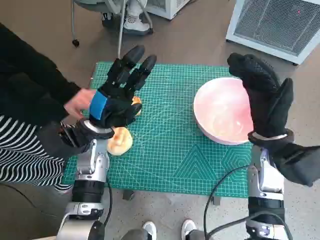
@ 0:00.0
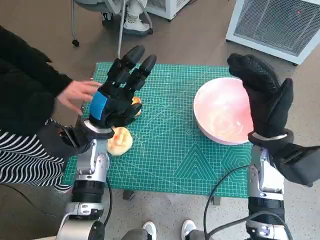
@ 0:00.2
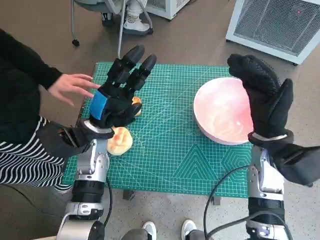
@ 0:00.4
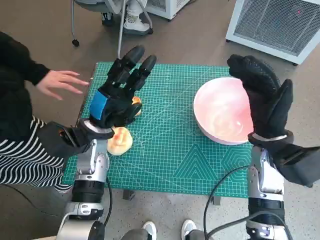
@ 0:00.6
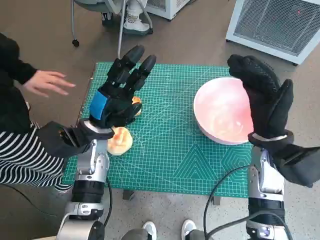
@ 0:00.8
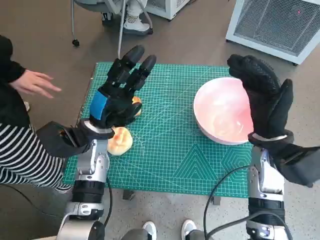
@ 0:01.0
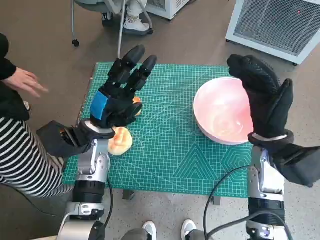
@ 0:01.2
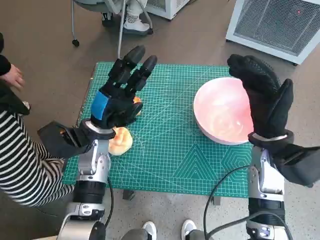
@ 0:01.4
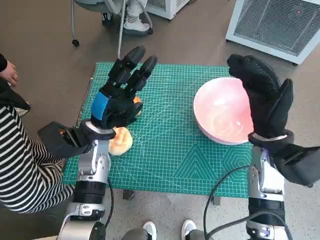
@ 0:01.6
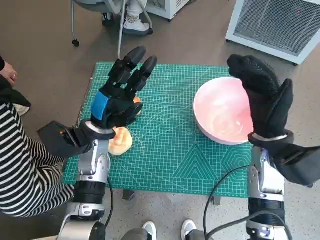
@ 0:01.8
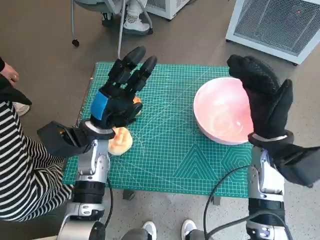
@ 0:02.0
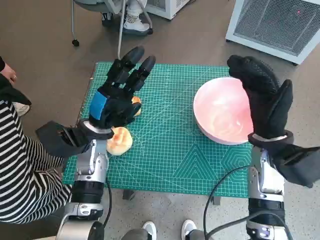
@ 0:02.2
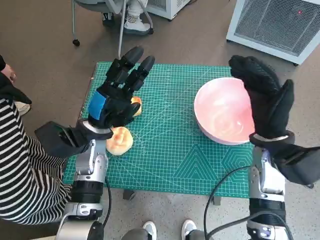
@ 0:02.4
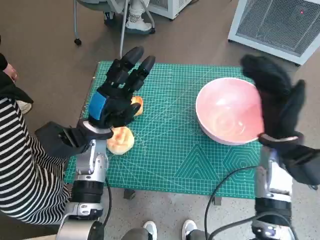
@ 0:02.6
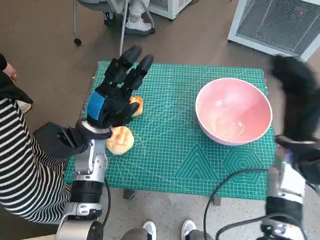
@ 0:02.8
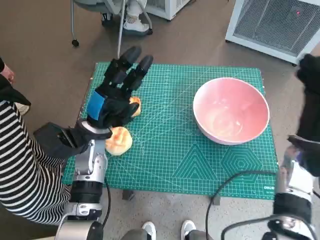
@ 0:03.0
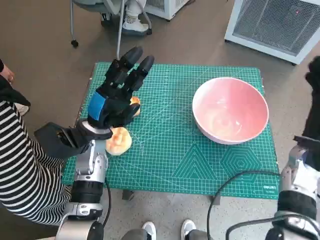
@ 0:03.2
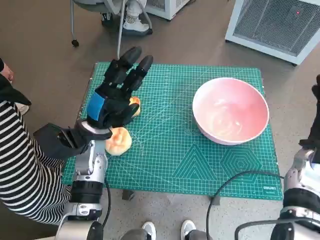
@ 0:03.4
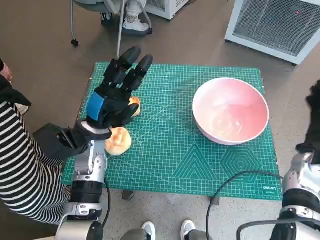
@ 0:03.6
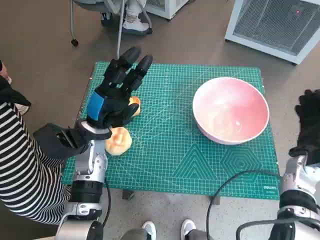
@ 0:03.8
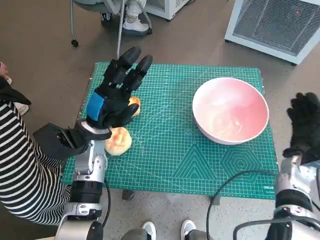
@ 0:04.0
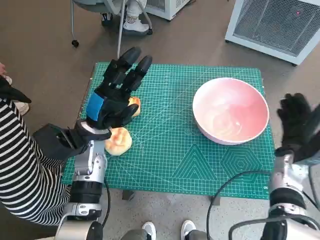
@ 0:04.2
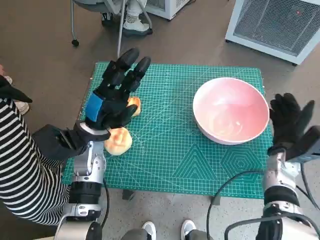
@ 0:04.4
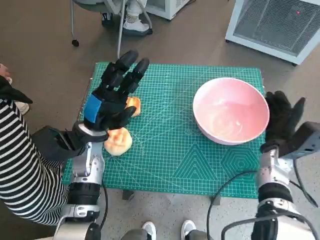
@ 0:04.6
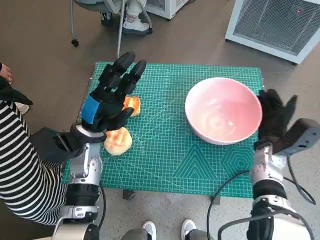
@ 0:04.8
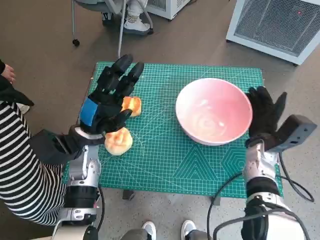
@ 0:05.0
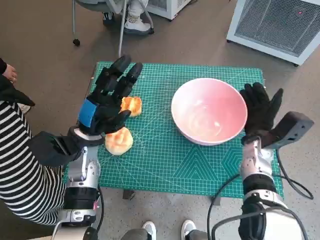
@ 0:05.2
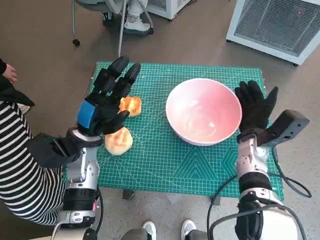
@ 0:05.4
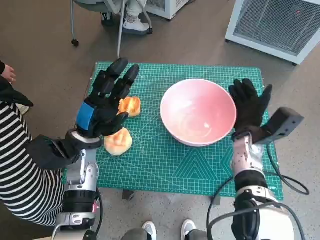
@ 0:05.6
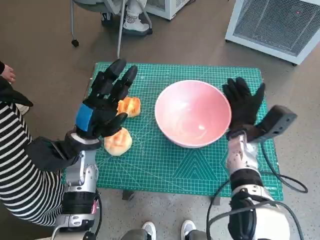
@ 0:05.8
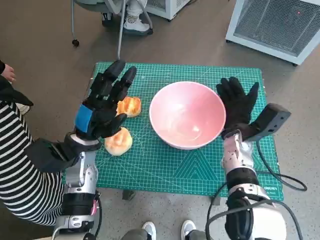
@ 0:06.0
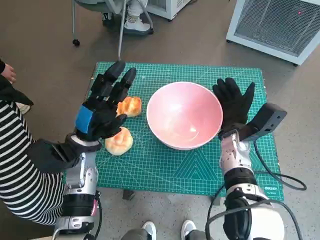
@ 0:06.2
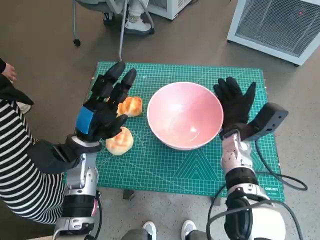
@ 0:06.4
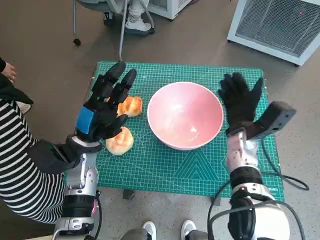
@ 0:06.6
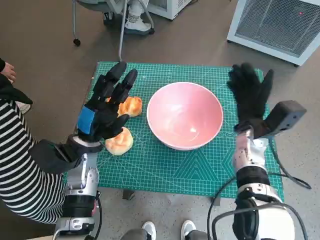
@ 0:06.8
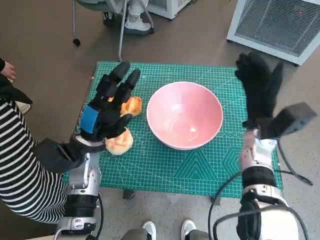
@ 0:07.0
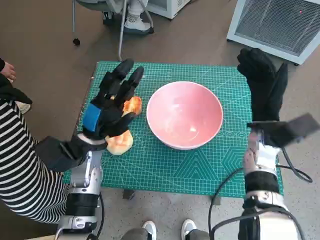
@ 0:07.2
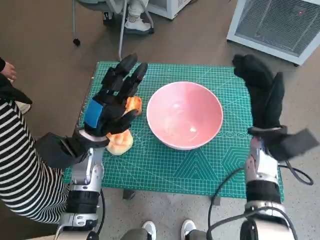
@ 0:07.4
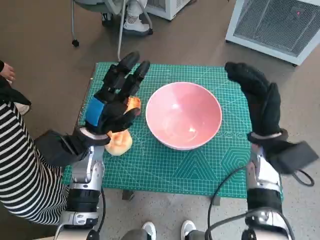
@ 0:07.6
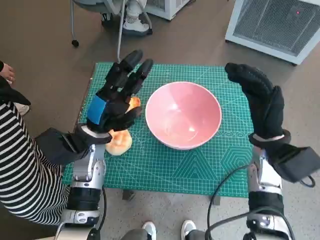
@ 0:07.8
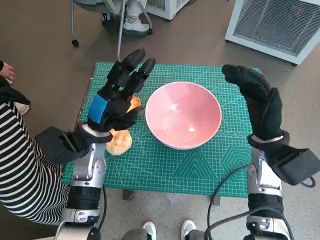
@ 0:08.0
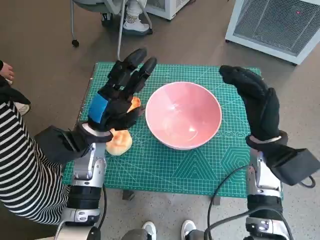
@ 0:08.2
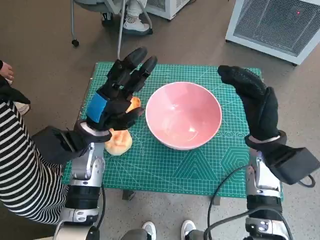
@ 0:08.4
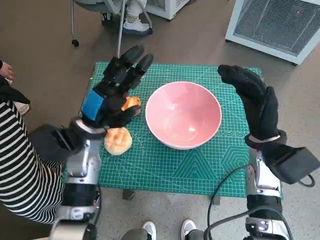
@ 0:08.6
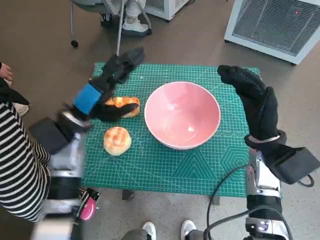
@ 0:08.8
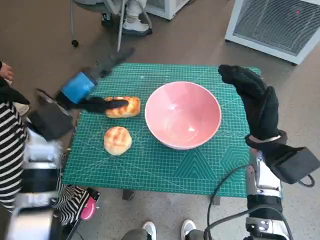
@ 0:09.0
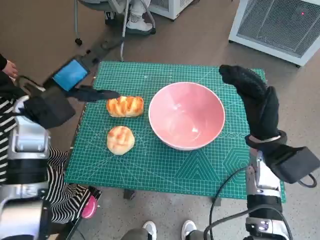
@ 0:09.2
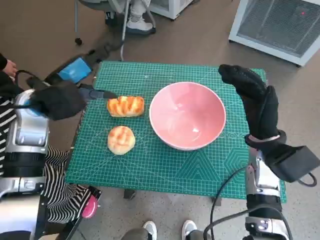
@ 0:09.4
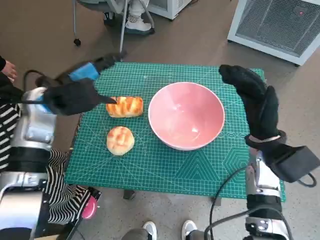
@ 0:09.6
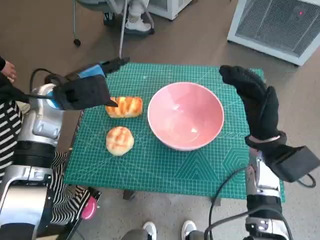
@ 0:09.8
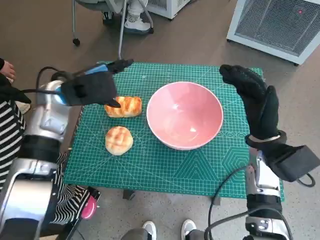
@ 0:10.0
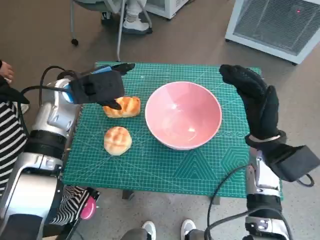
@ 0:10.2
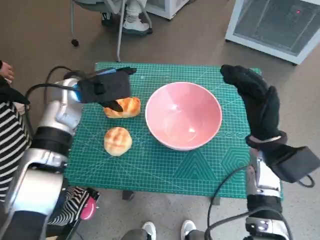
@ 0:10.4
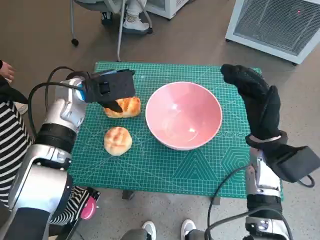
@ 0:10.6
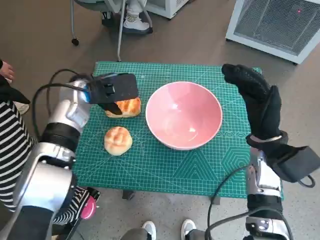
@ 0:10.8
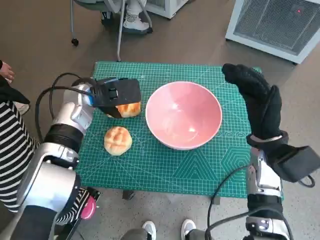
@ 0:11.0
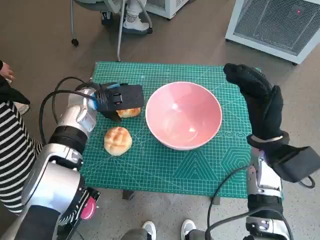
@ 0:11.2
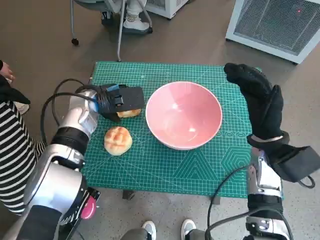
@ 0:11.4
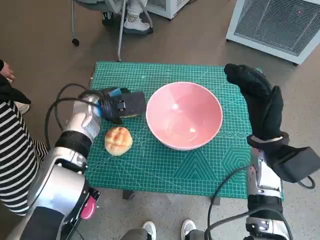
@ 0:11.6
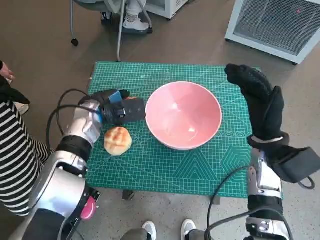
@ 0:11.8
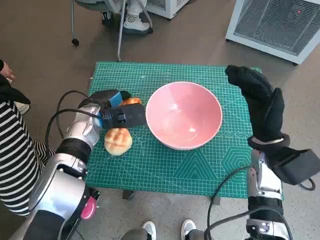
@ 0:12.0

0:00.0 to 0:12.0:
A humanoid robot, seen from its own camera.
Task of the whole recording: Push the bowl into the center of the table and put the bread into the bowl.
Step, 0:00.0 to 0:06.6: Move the pink bowl to the center of table with right hand.
0:01.6 to 0:03.0: The right hand heads to the right, covering some 5 cm.
0:03.0 to 0:04.4: The right hand shifts some 10 cm downward.
0:04.4 to 0:06.0: The right hand heads to the left, covering some 10 cm.
0:06.0 to 0:07.6: The right hand heads upward, covering some 5 cm.
0:07.6 to 0:09.0: The left hand goes approximately 5 cm upward.
0:09.0 to 0:10.4: The left hand shifts some 5 cm forward.
0:10.4 to 0:12.0: The left hand goes about 10 cm downward.

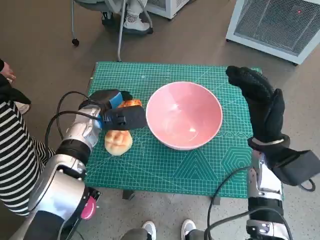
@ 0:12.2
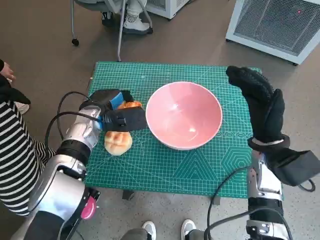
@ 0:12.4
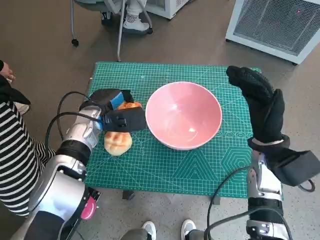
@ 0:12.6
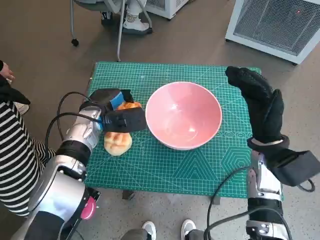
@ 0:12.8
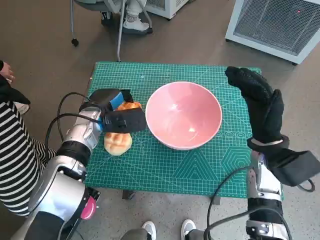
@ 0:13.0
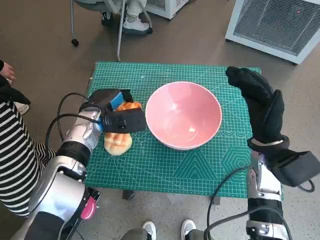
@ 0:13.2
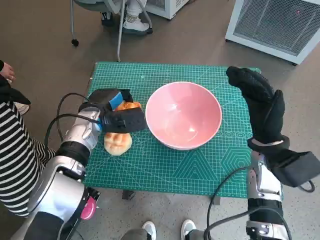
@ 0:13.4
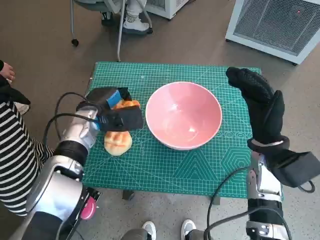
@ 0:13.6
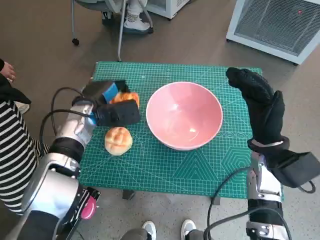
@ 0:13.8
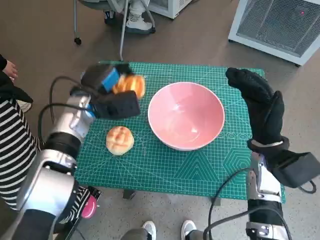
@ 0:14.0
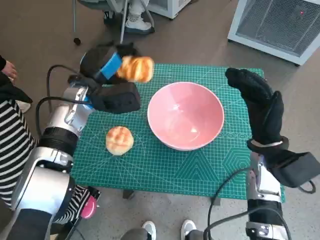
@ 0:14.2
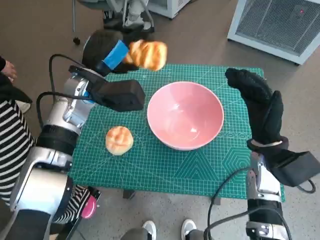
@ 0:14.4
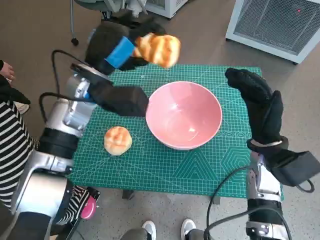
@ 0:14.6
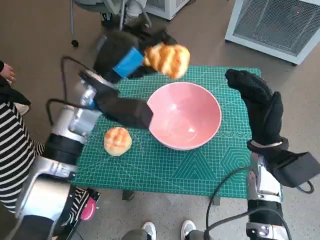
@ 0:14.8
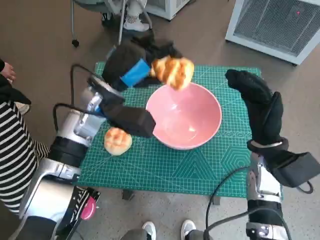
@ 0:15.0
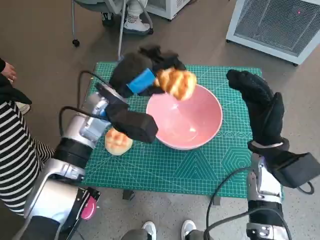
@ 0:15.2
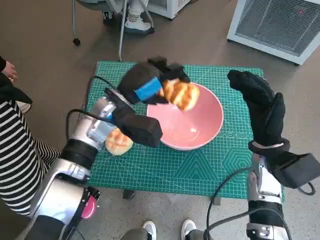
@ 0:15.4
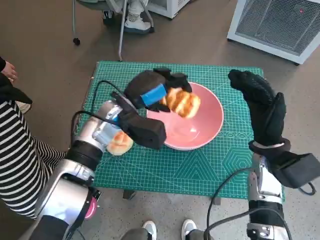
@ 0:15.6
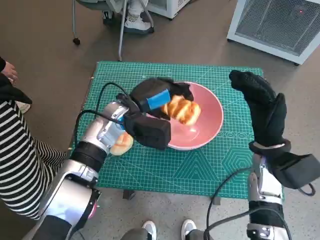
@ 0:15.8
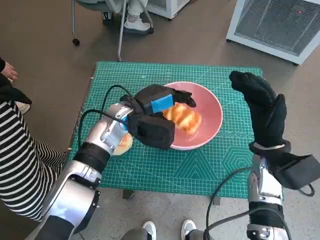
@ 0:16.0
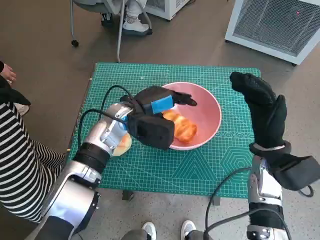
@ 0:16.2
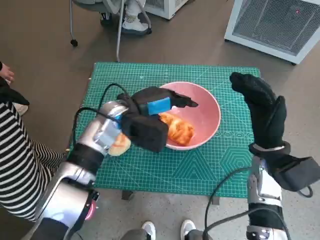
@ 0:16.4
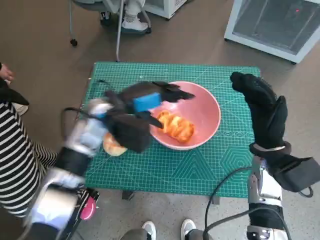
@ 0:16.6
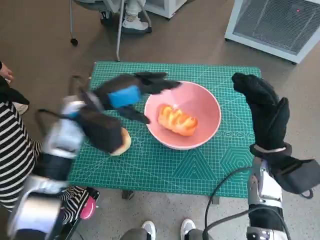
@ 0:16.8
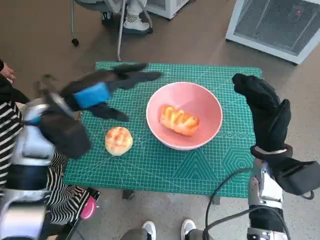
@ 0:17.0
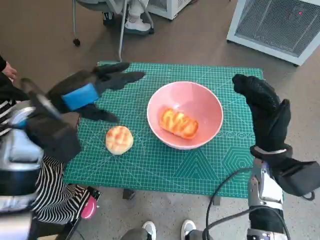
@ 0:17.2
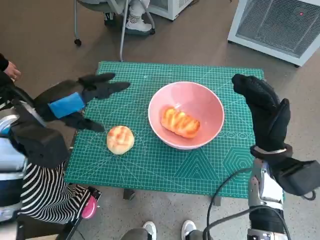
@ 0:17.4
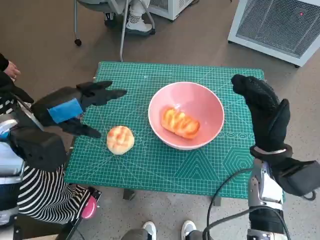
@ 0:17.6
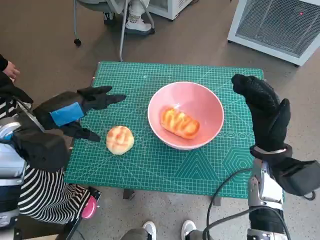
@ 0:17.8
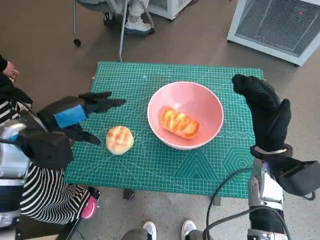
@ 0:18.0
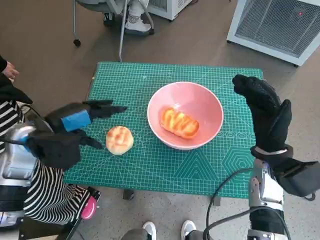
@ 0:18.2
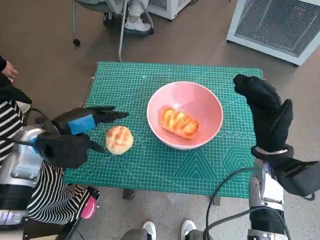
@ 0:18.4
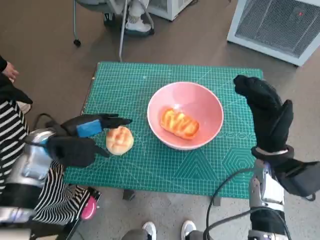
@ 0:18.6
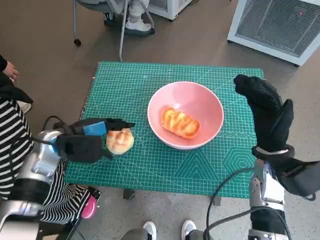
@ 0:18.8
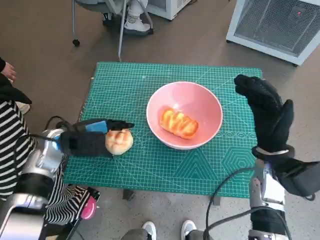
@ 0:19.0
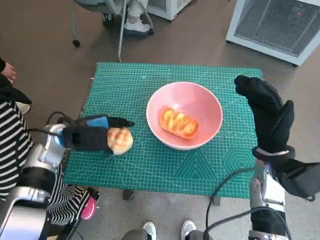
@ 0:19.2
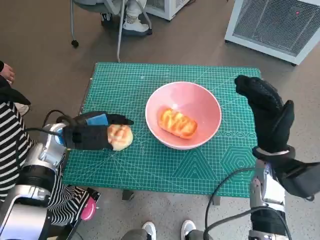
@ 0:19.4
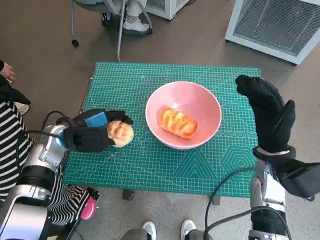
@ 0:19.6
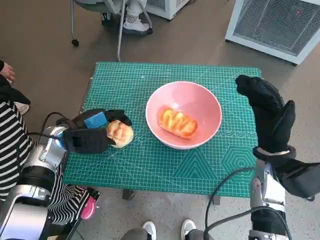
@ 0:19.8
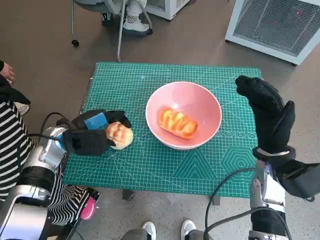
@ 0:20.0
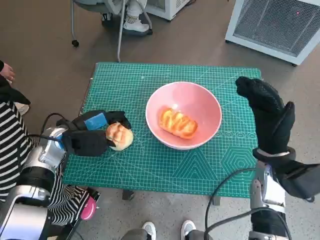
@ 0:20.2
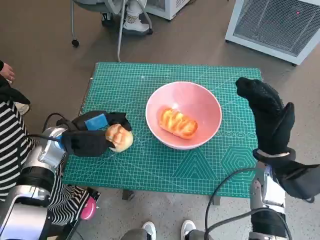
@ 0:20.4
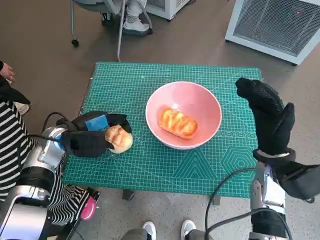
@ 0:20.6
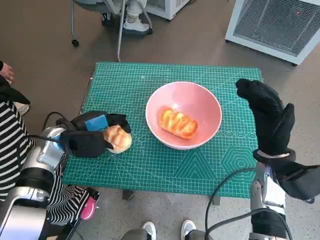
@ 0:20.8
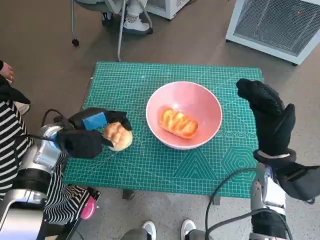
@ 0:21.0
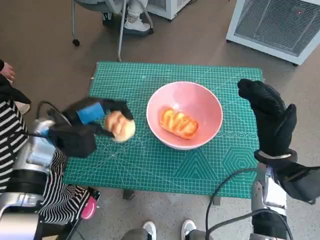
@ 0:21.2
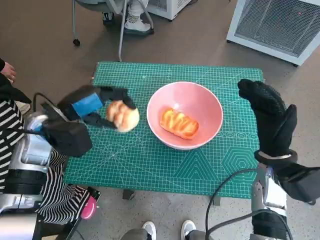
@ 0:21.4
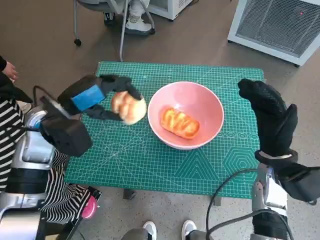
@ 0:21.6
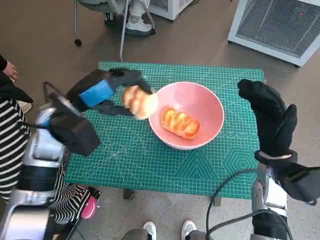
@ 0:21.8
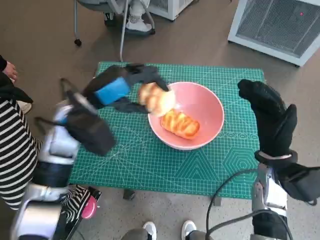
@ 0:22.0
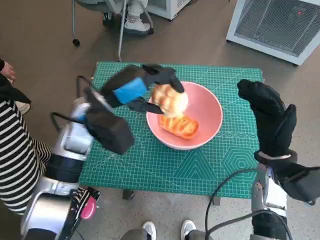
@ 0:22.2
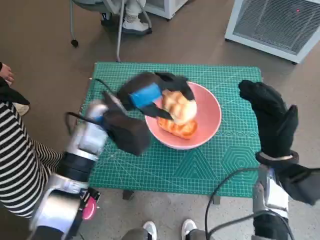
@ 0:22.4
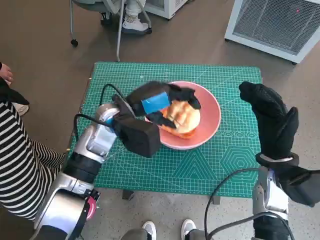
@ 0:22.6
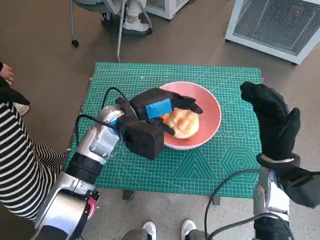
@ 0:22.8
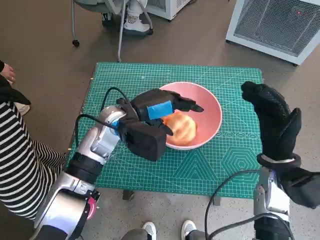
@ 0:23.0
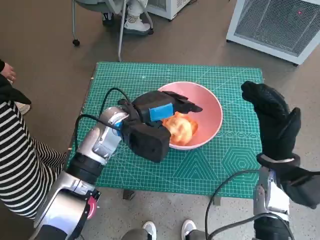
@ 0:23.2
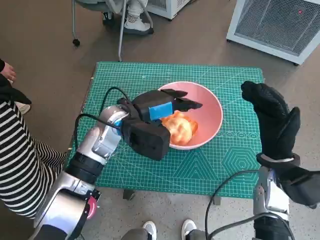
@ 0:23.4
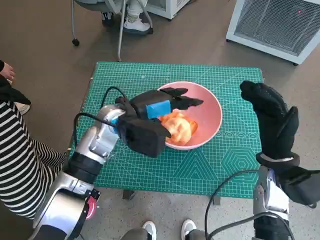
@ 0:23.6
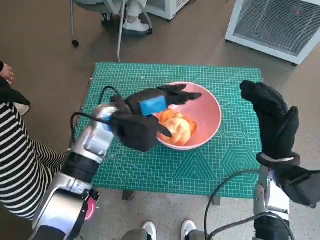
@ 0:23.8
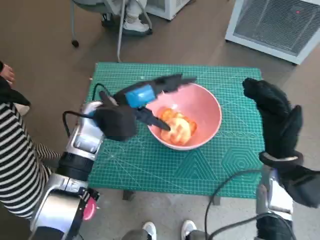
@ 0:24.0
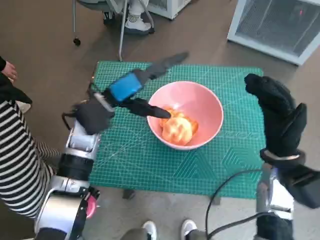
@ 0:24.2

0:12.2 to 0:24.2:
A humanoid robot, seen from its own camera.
Task of the whole recording: Push the bowl into the center of the table and put the bread into the bowl.
Step, 0:12.6 to 0:16.8: Place the long bread in pink bowl with left hand.
Step, 0:17.0 to 0:20.2: Grasp the round bread with left hand.
Step, 0:20.4 to 0:24.2: Place the round bread in pink bowl with left hand.
0:12.2 to 0:13.8: The hands move only a little.
0:13.8 to 0:15.2: The left hand shifts some 10 cm upward and to the right.
0:16.6 to 0:18.2: The left hand heads to the left and backward, covering about 15 cm.
0:18.2 to 0:19.8: The left hand shifts approximately 5 cm downward.
0:19.8 to 0:21.2: There are only small adjustments of the hands.
0:21.2 to 0:22.6: The left hand is displaced to the right by about 15 cm.
